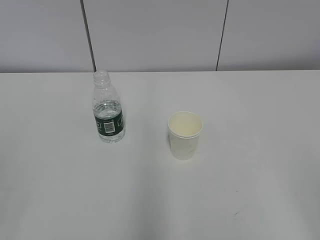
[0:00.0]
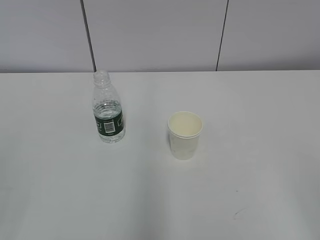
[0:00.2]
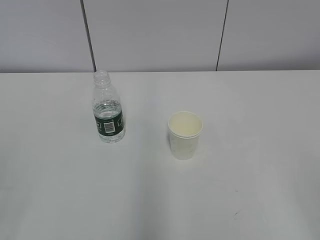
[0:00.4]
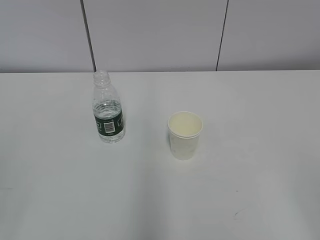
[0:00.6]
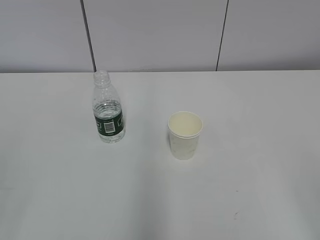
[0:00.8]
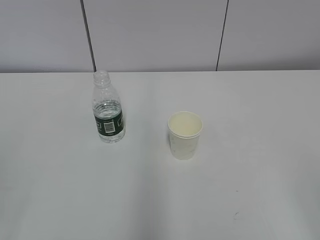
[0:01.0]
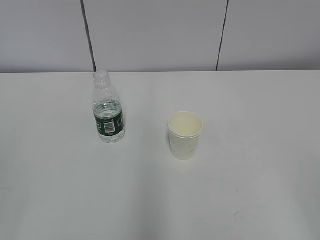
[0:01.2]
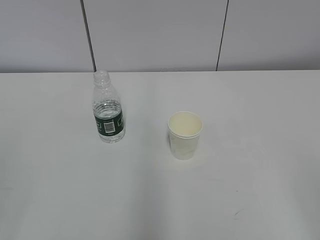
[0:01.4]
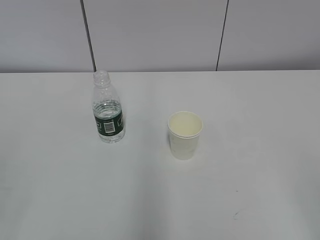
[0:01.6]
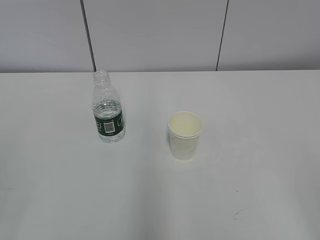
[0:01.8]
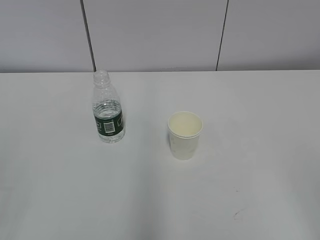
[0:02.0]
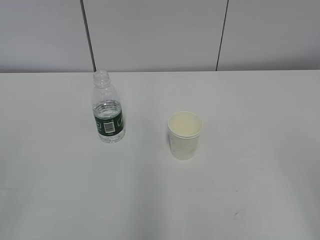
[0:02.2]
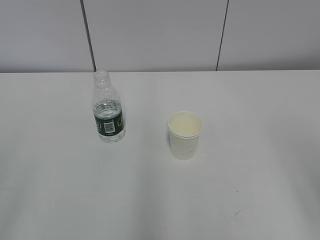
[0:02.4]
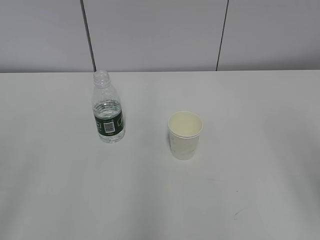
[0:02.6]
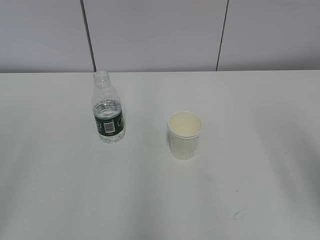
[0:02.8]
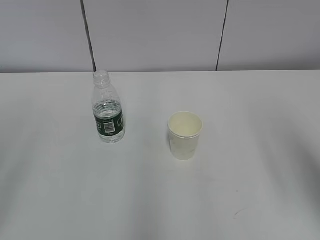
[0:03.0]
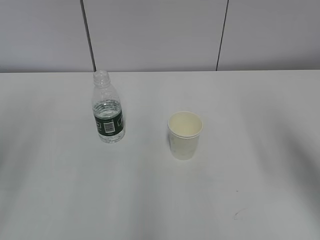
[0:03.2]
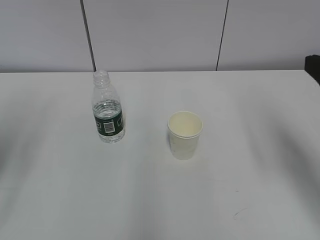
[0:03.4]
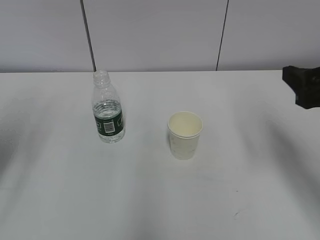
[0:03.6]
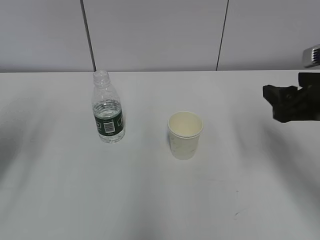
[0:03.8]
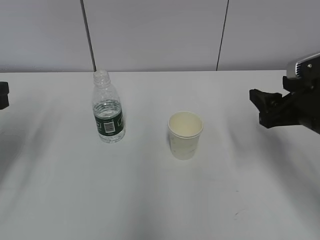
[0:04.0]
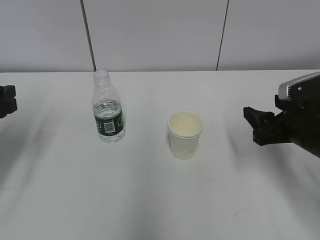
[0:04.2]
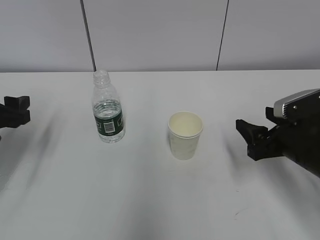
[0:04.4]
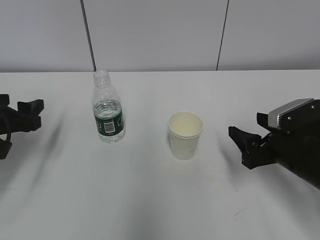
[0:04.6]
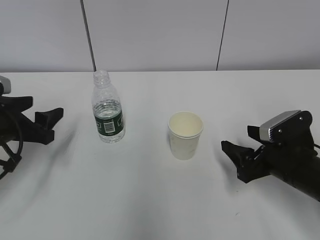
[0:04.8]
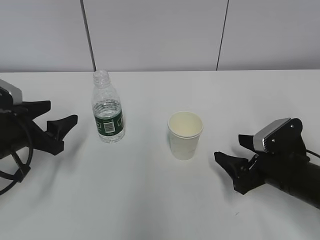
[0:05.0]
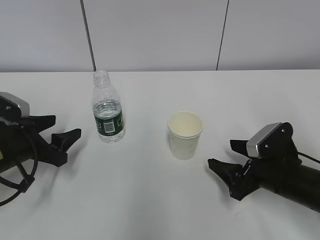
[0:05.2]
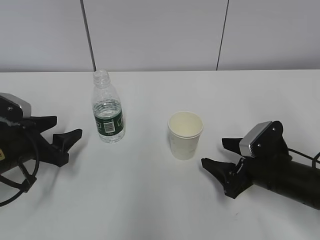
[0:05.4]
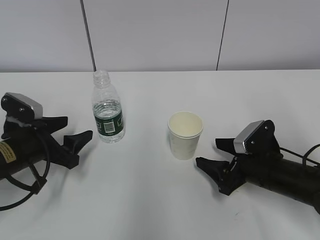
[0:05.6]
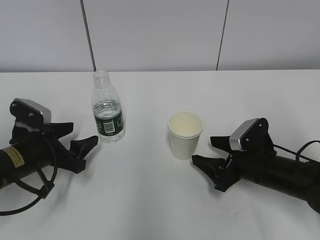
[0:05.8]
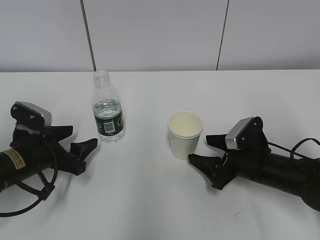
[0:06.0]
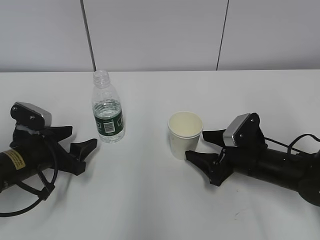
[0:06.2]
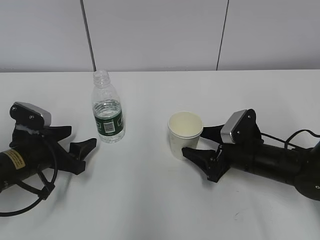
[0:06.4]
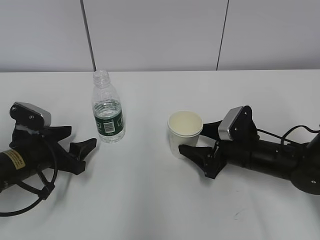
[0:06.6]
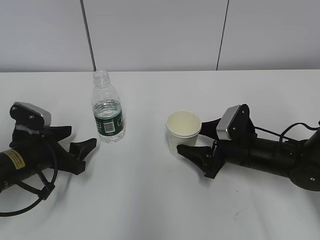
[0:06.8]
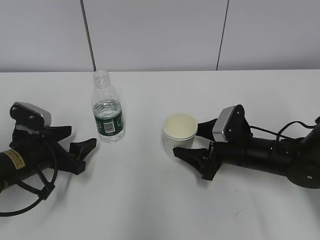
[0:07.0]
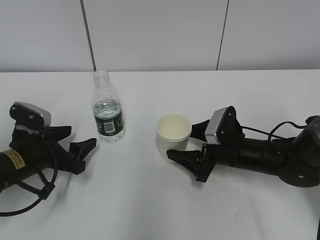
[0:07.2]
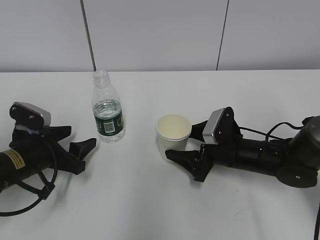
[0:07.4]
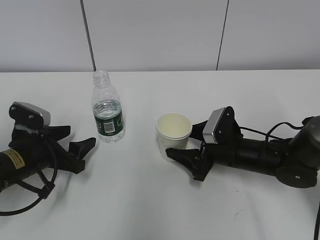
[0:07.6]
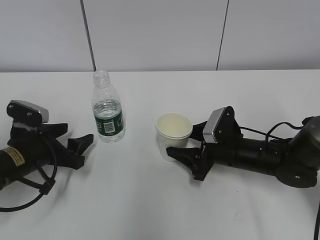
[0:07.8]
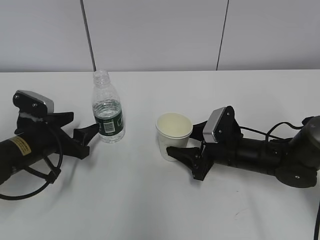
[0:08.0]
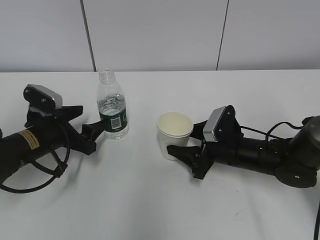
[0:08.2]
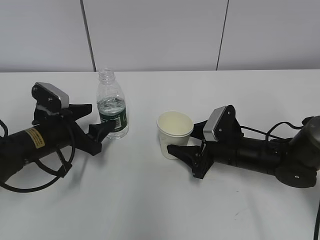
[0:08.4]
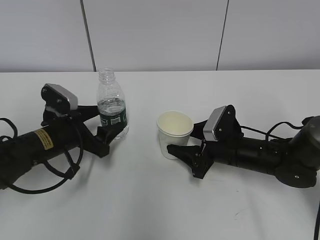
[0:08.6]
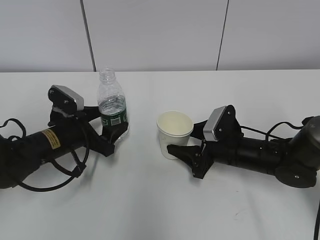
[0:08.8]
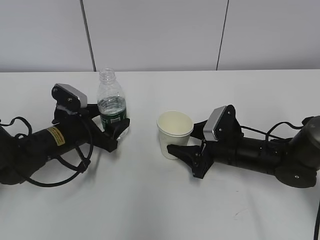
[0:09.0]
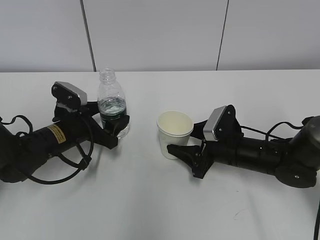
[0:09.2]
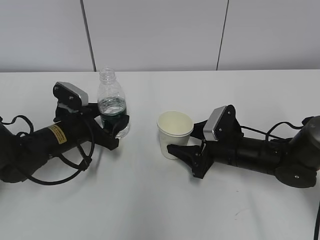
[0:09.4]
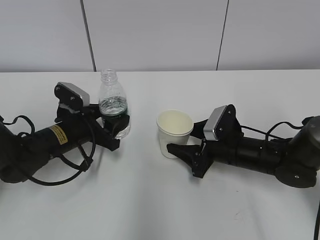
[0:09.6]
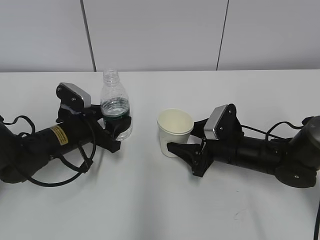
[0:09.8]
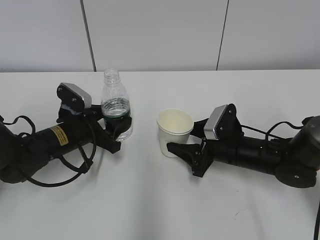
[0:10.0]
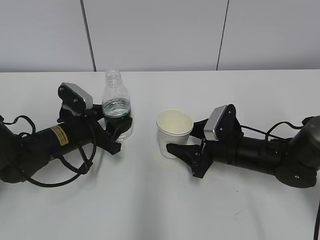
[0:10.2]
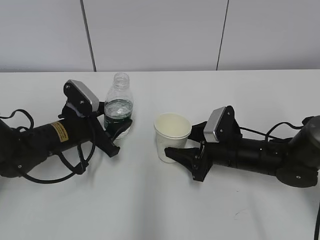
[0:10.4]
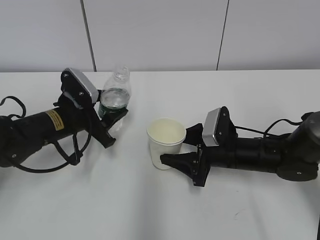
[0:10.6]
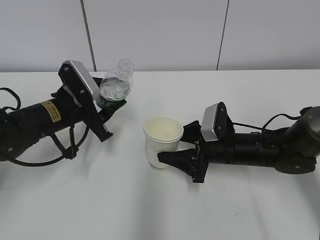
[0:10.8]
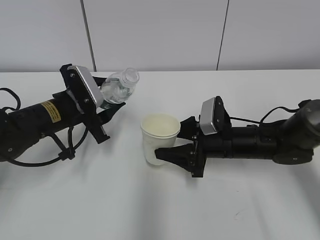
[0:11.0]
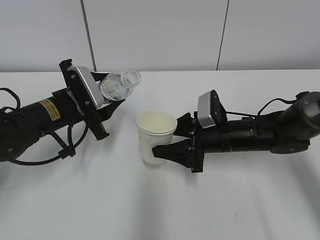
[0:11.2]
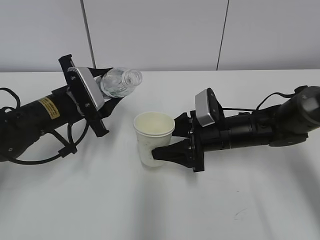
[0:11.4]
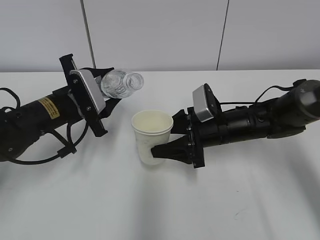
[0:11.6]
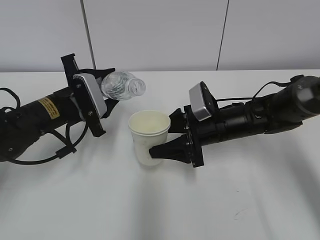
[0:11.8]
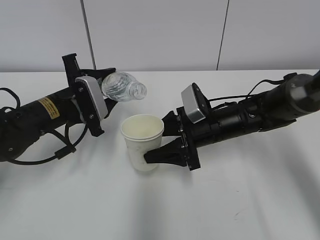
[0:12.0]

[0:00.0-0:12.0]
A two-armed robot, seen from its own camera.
Step, 0:00.0 to 0:06.2: Grab the paper cup with the right hand.
Step, 0:08.0 to 0:11.6: Lift the paper cup with the right hand.
0:01.6 to 0:03.0: The right gripper goes some 15 cm forward.
0:03.0 to 0:04.4: The left gripper is displaced forward and downward by approximately 25 cm; the right gripper travels downward and forward by roughly 25 cm.
0:04.4 to 0:06.0: The right gripper moves downward, approximately 10 cm, while the left gripper heads downward and to the right, covering about 10 cm.
0:06.0 to 0:07.6: The right gripper moves about 5 cm.
0:07.6 to 0:09.0: The right gripper closes, while the left gripper is displaced forward by about 5 cm.
0:09.0 to 0:10.4: The left gripper closes.
0:10.4 to 0:12.0: The left gripper moves upward, roughly 5 cm. Meanwhile the right gripper changes place by about 5 cm.

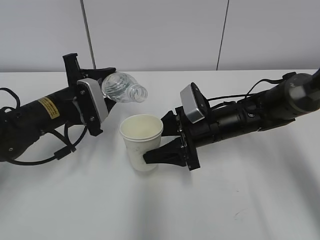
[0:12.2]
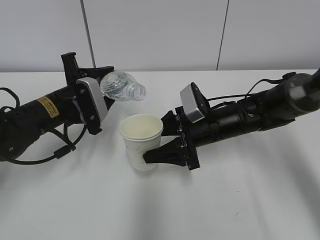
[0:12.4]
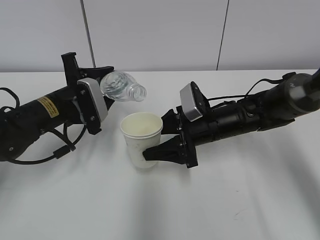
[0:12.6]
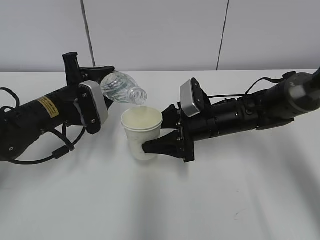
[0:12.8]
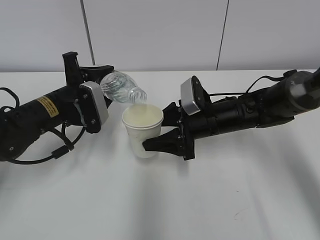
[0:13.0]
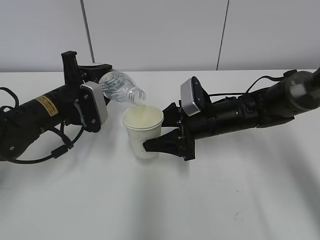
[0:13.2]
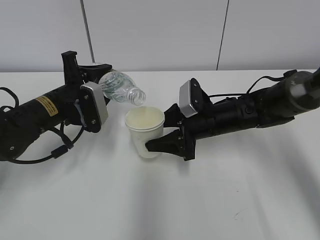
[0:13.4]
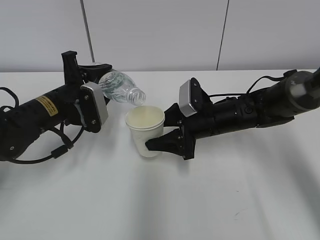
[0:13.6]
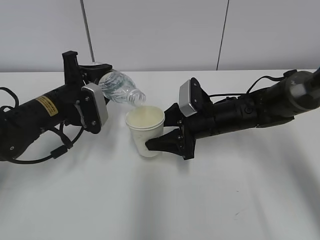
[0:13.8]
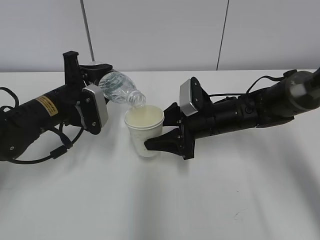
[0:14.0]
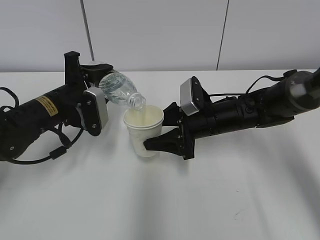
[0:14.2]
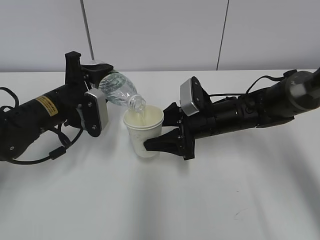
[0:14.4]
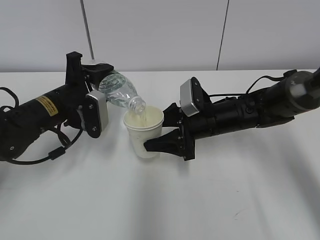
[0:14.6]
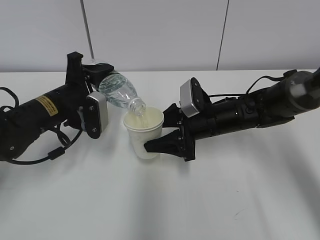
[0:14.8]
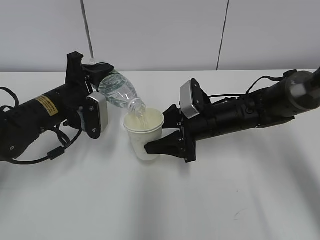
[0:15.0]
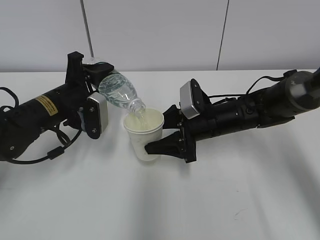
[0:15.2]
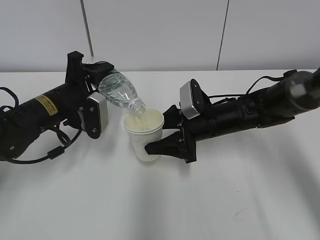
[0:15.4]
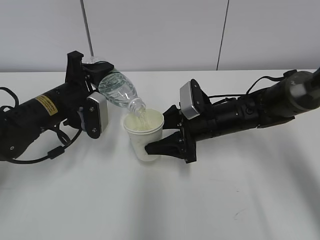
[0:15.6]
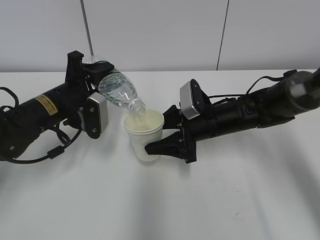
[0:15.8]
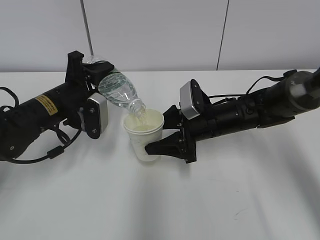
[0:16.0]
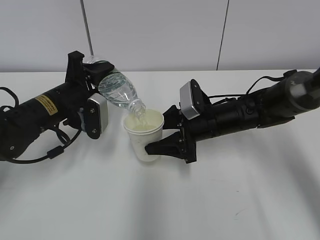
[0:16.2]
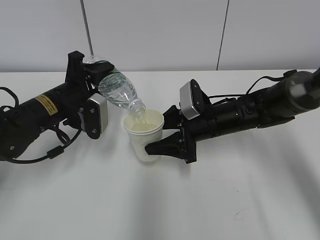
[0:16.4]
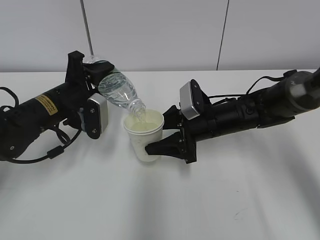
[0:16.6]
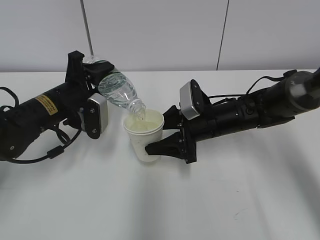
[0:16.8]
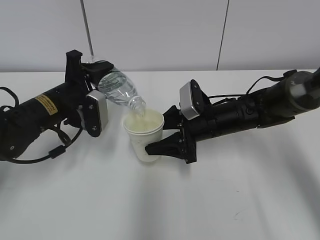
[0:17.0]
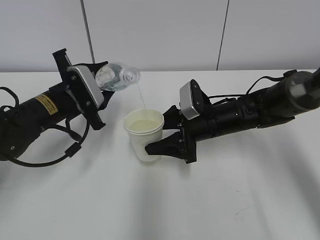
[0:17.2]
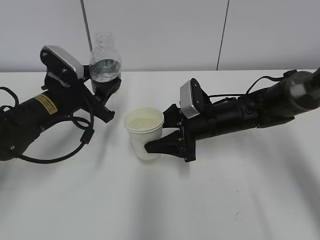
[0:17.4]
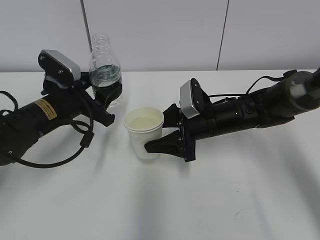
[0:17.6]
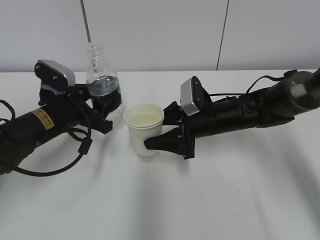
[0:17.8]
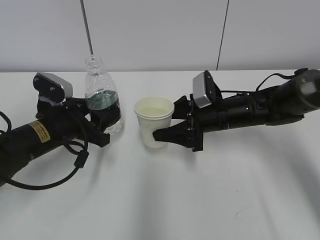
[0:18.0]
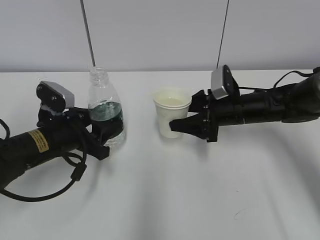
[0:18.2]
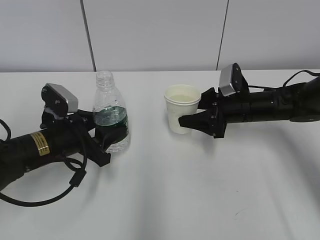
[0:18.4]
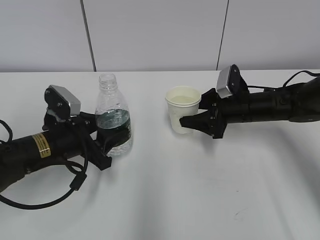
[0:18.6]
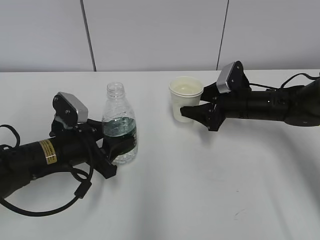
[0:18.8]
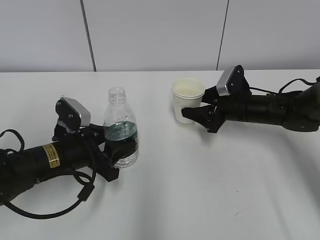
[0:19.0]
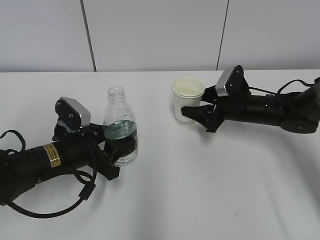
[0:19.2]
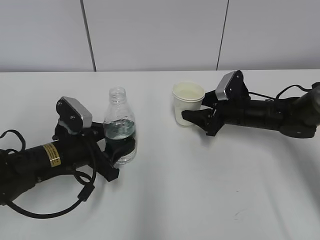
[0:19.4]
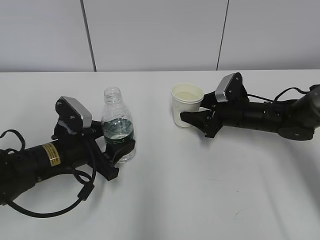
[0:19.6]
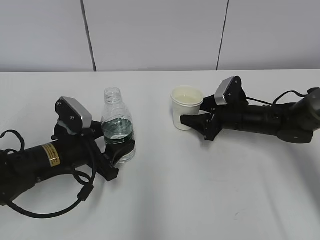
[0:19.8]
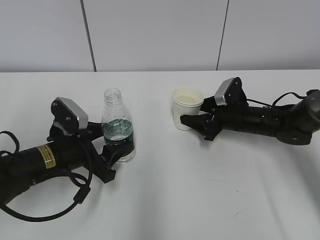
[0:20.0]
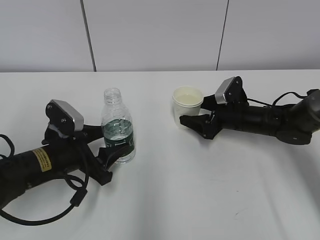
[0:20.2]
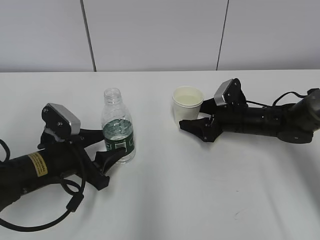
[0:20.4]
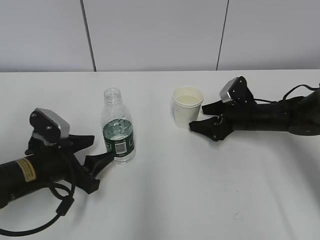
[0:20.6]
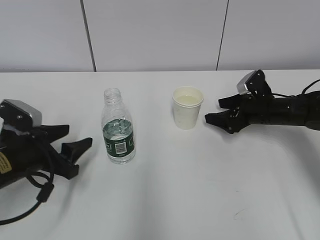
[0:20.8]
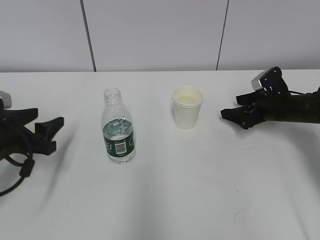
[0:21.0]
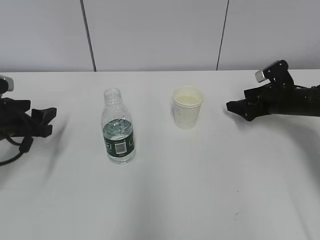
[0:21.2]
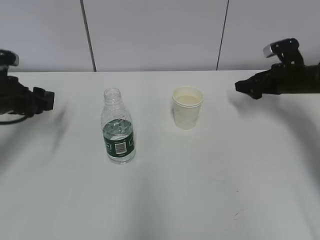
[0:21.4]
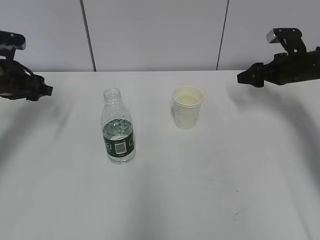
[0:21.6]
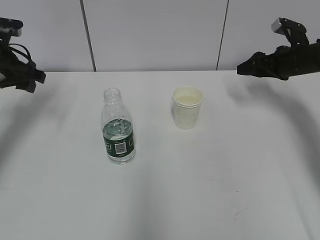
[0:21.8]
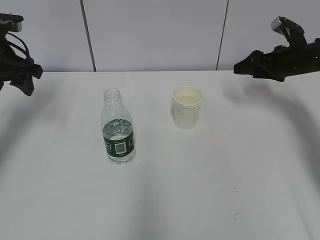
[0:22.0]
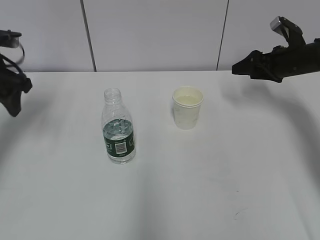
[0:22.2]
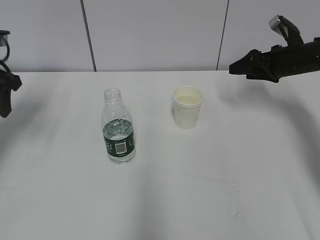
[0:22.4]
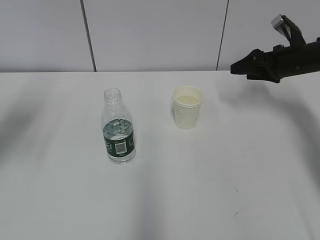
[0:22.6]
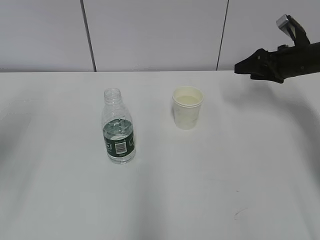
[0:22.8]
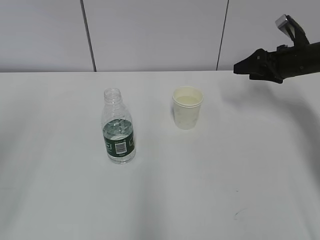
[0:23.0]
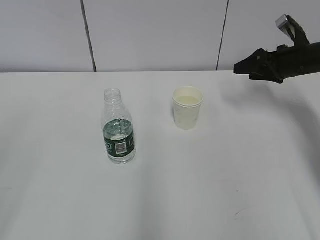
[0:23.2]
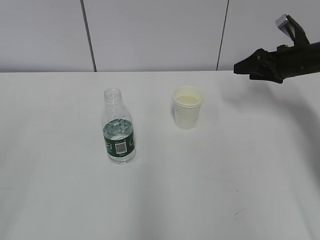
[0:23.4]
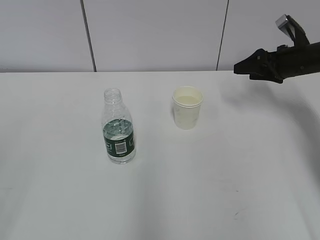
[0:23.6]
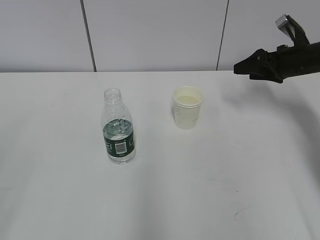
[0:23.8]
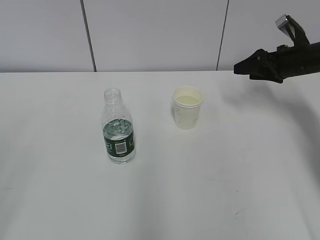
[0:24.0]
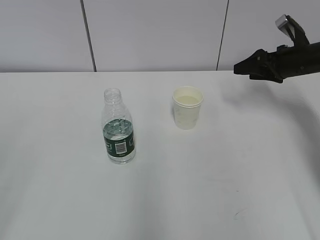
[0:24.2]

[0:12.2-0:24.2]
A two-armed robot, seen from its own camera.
Step, 0:12.2 to 0:14.2: Fill water with the right hand.
Step, 0:12.2 to 0:14.2: Pour water with the left hand.
0:12.2 to 0:13.8: The grippers make only small movements.
0:13.8 to 0:15.2: The grippers make only small movements.
0:15.2 to 0:16.6: The two grippers keep their place.
0:16.6 to 0:18.2: The right gripper moves to the right, about 5 cm. Meanwhile the left gripper ends up approximately 5 cm from where it was.
0:18.2 to 0:19.8: The right gripper moves about 5 cm.
0:19.8 to 0:21.2: The left gripper is displaced to the left by roughly 10 cm; the right gripper travels to the right by some 10 cm, and opens up.
0:21.2 to 0:22.6: The right gripper goes approximately 10 cm upward, and closes; the left gripper moves upward, approximately 15 cm.
0:22.6 to 0:24.2: The left gripper moves backward, some 25 cm.
